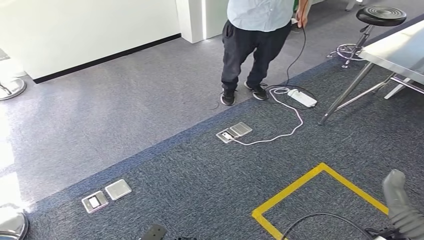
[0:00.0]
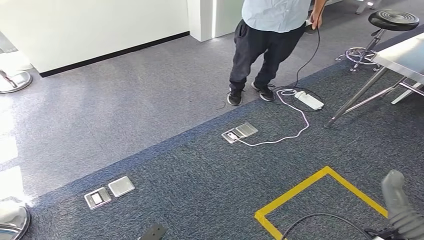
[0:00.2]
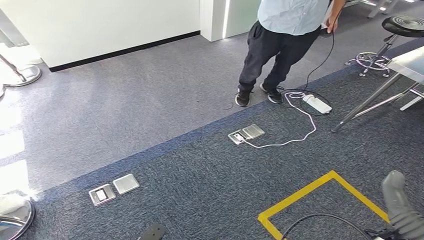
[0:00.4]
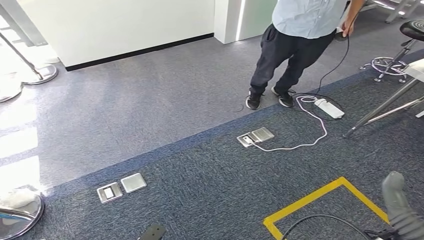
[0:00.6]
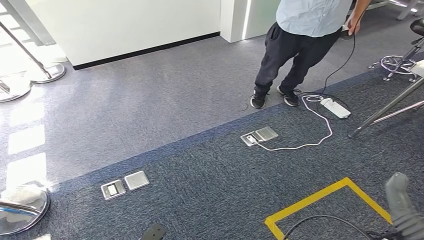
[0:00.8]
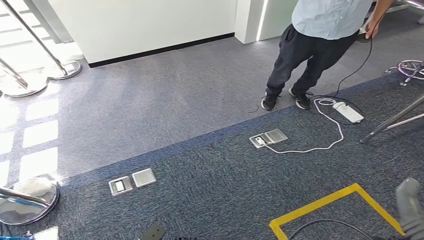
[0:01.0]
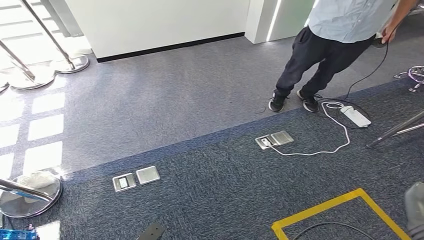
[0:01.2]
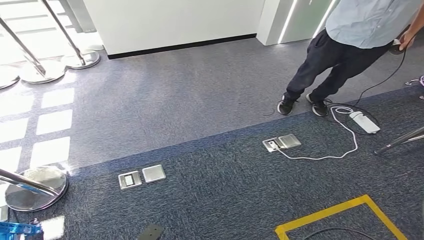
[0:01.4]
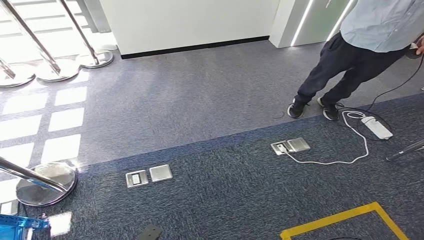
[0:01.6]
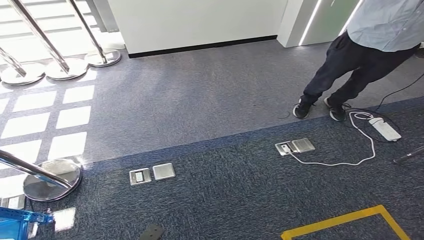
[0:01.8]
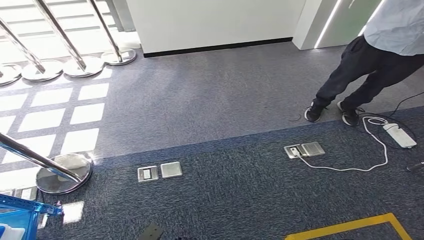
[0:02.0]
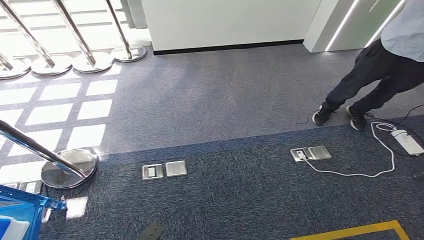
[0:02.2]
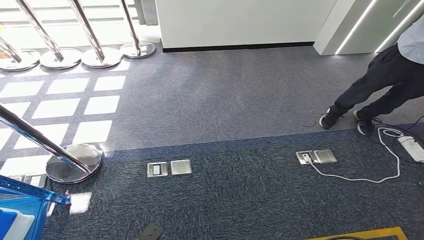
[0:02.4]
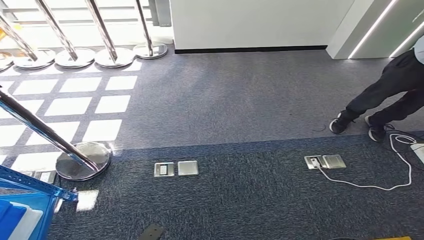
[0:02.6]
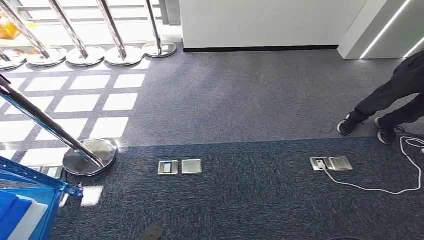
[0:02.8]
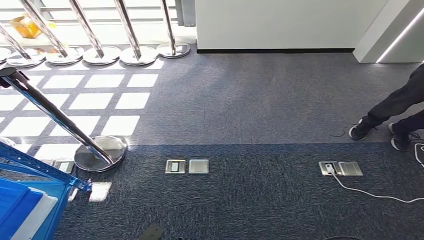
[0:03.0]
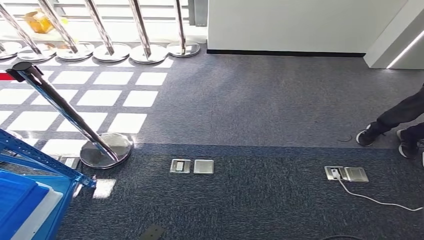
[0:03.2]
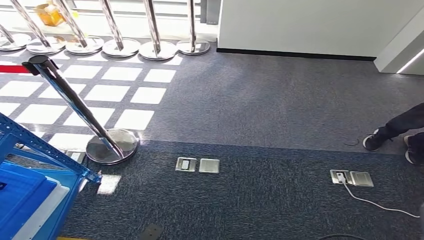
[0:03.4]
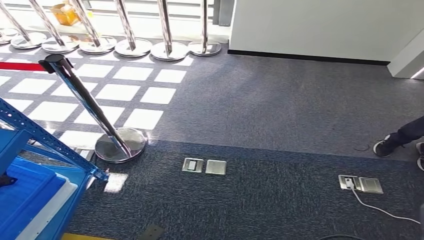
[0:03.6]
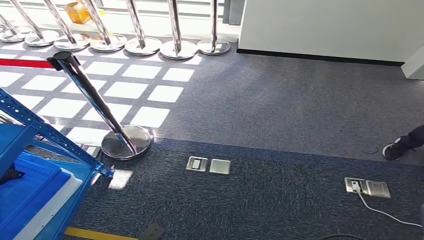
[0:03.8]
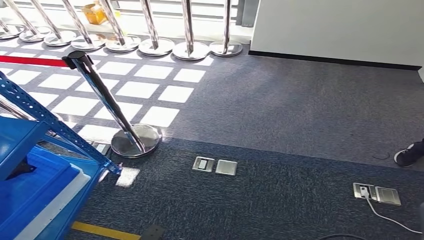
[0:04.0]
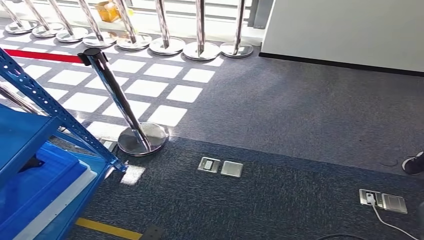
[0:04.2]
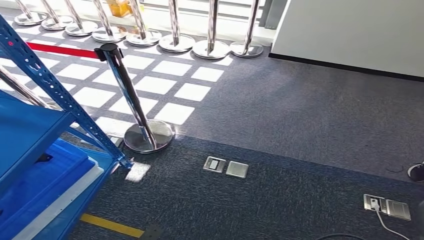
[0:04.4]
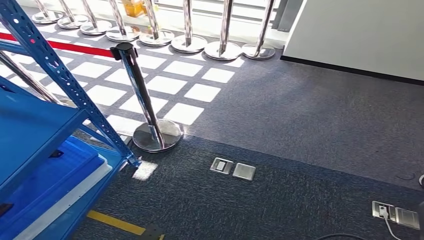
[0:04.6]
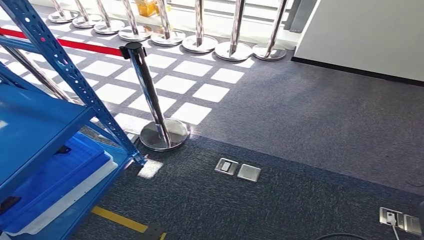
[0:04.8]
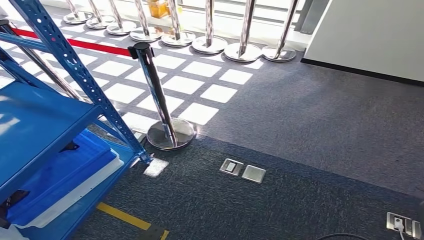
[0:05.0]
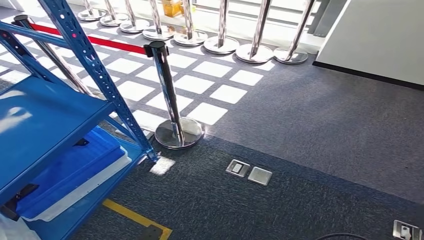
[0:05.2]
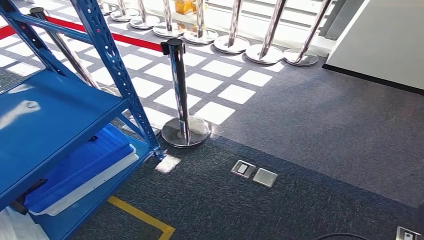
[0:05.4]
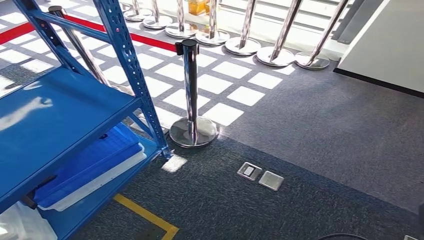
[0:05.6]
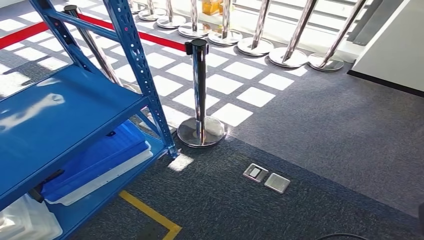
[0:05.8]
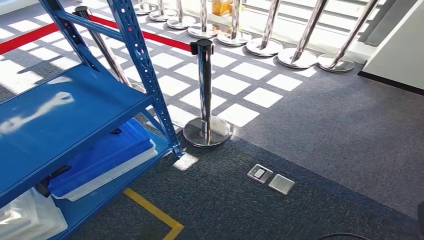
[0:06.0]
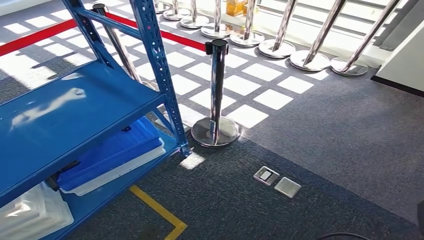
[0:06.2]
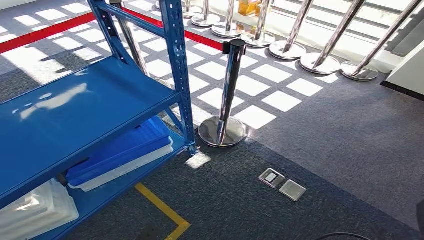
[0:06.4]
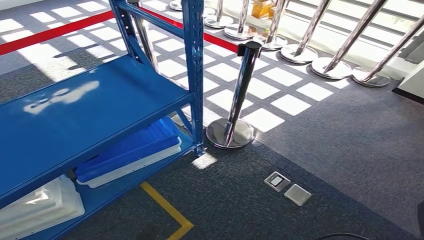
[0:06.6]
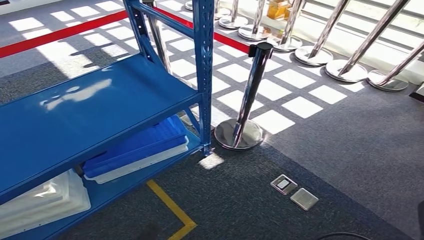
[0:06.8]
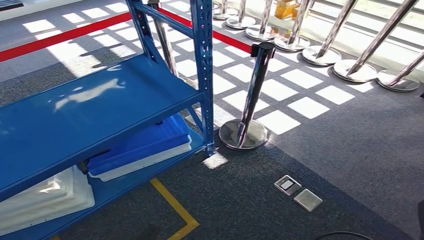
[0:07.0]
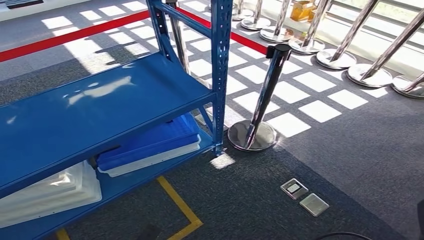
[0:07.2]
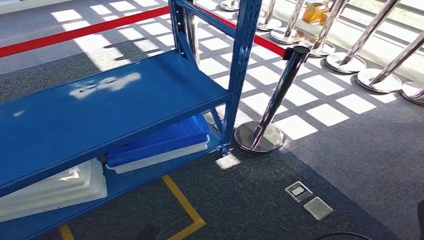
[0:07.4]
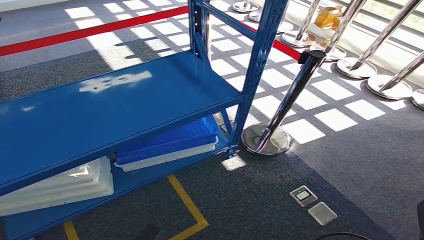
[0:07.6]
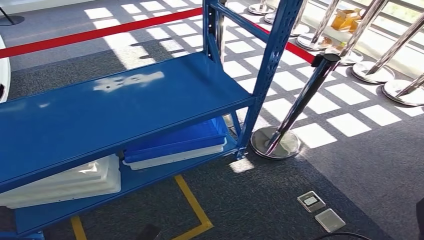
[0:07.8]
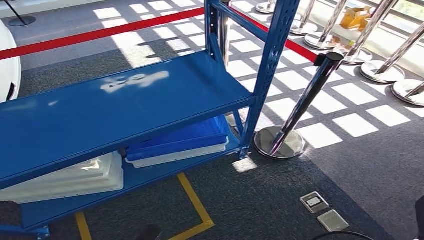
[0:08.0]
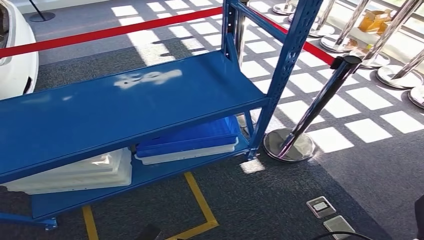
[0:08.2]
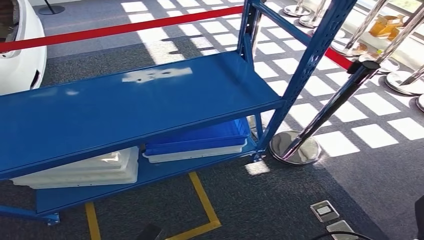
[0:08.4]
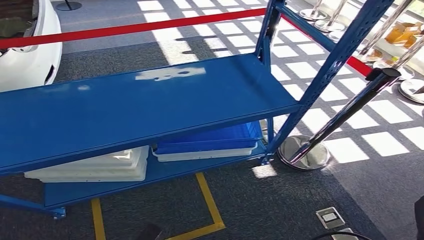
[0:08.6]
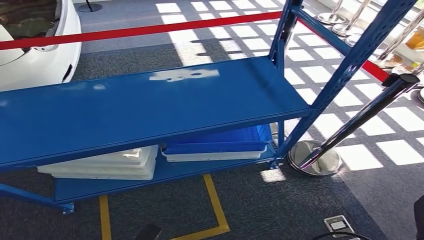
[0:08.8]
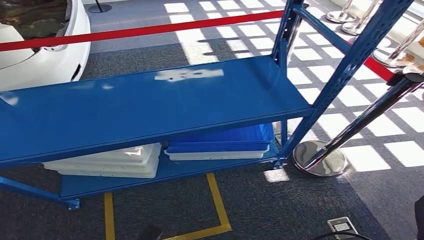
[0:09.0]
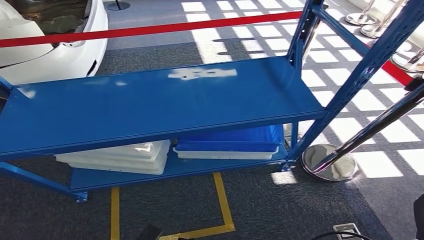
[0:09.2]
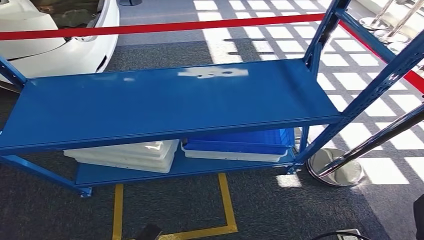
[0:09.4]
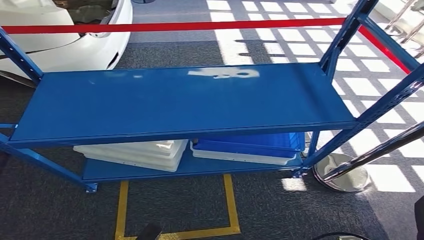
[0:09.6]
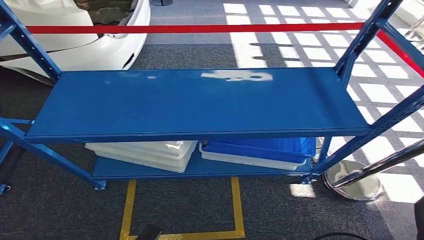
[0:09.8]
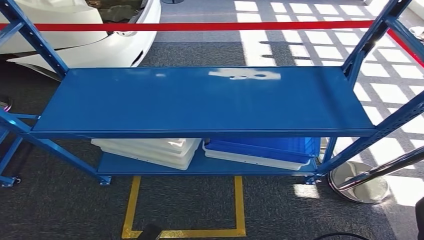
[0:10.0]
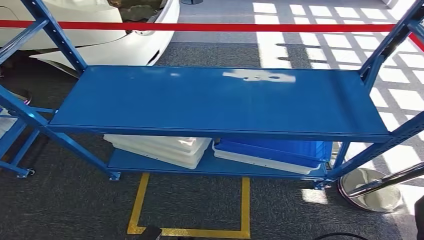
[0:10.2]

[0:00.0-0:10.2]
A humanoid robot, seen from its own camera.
Step, 0:00.0 to 0:10.0: Move to the initial position of the shelf.
